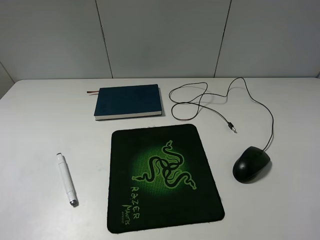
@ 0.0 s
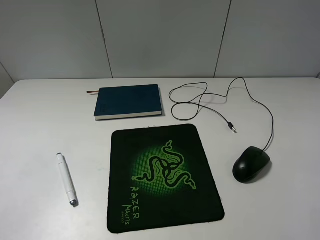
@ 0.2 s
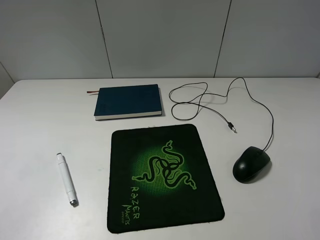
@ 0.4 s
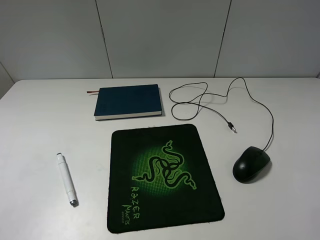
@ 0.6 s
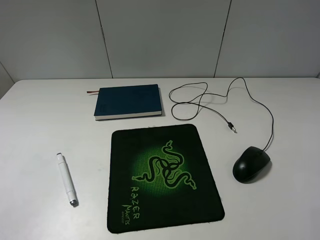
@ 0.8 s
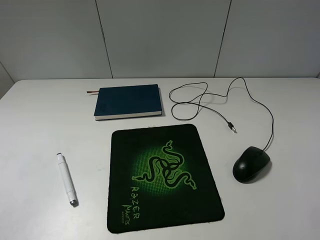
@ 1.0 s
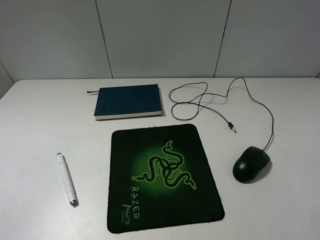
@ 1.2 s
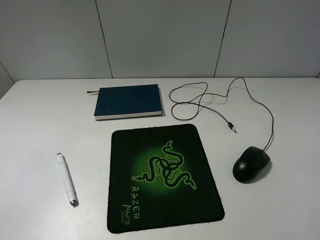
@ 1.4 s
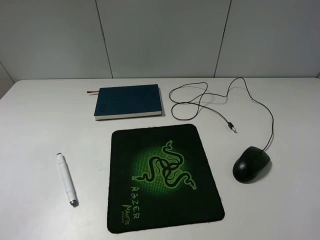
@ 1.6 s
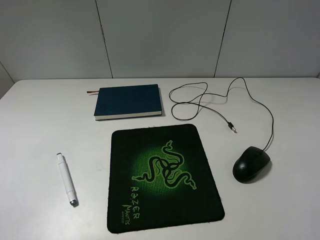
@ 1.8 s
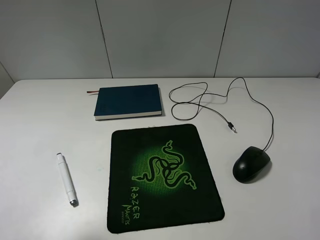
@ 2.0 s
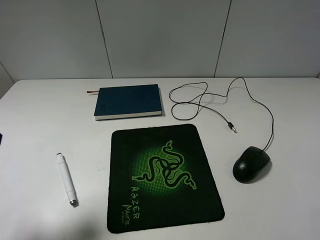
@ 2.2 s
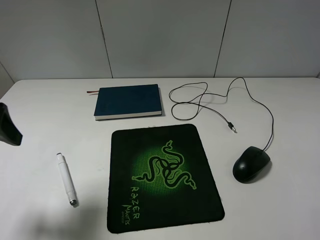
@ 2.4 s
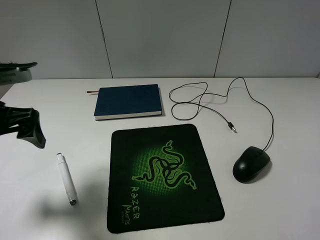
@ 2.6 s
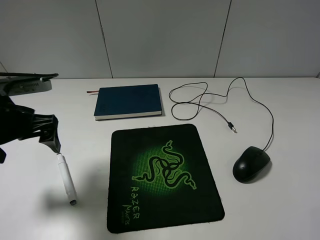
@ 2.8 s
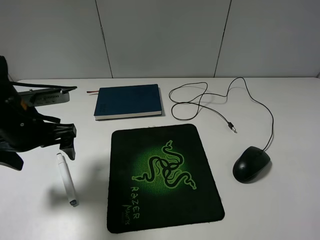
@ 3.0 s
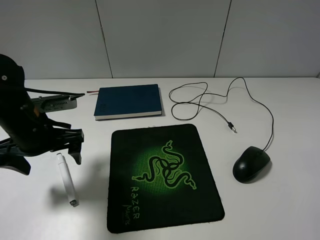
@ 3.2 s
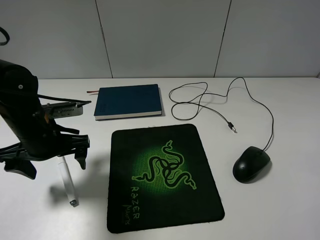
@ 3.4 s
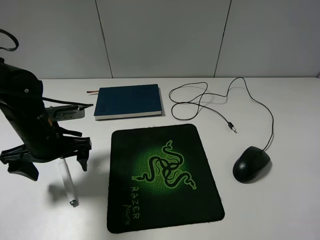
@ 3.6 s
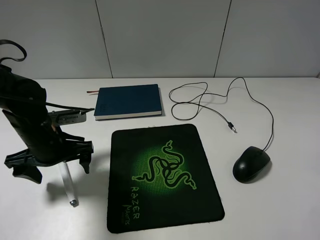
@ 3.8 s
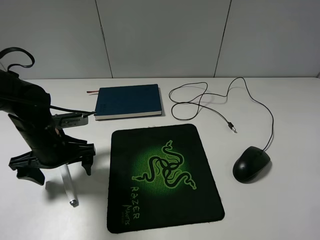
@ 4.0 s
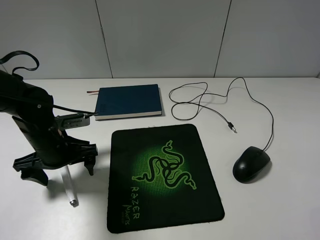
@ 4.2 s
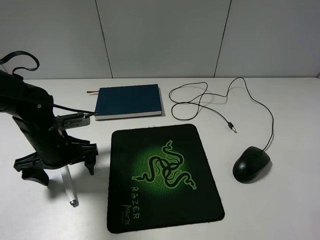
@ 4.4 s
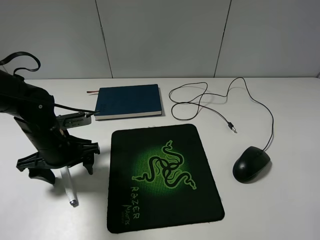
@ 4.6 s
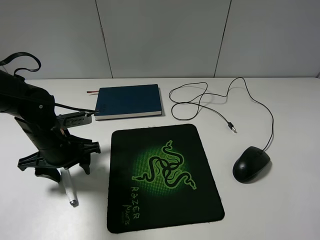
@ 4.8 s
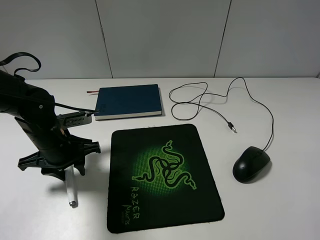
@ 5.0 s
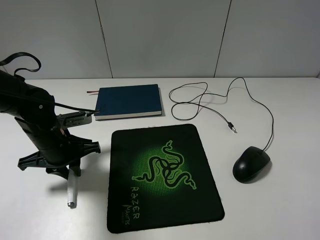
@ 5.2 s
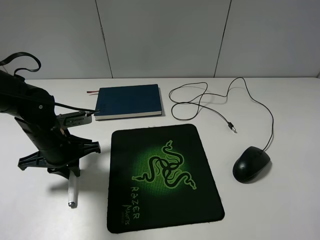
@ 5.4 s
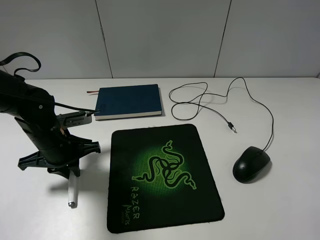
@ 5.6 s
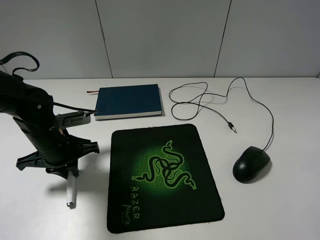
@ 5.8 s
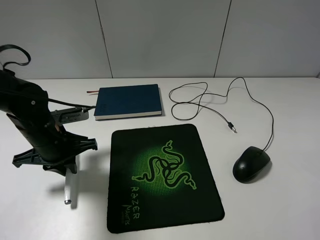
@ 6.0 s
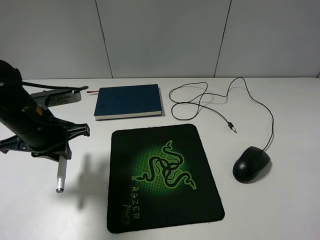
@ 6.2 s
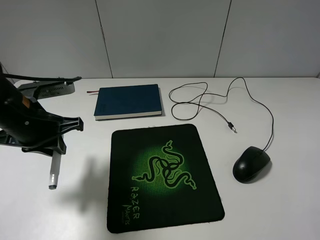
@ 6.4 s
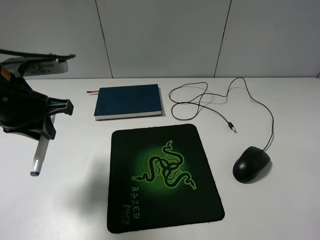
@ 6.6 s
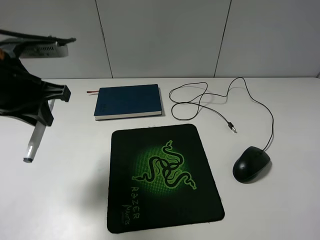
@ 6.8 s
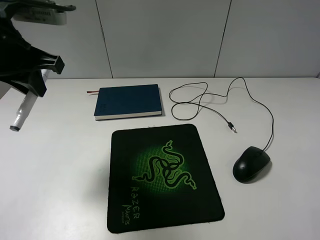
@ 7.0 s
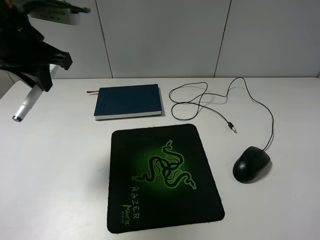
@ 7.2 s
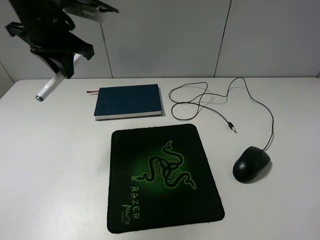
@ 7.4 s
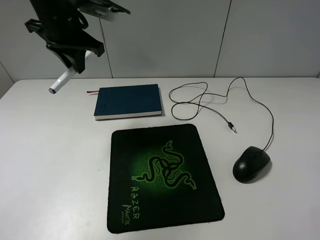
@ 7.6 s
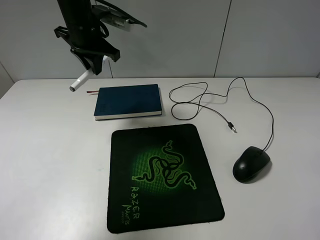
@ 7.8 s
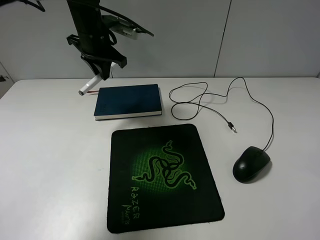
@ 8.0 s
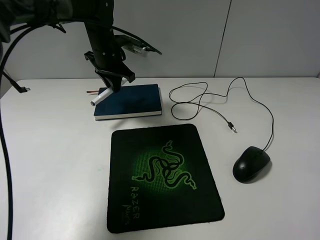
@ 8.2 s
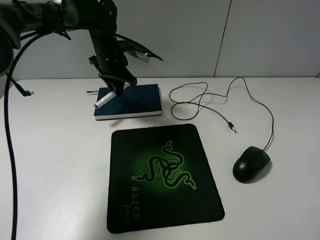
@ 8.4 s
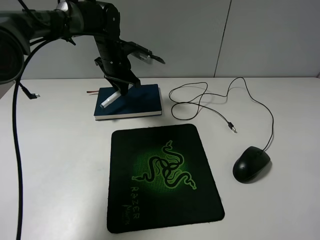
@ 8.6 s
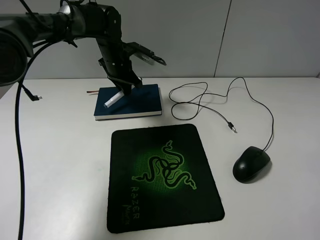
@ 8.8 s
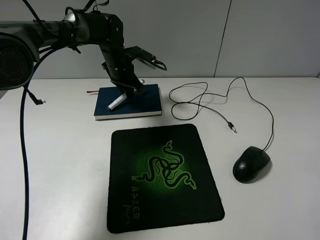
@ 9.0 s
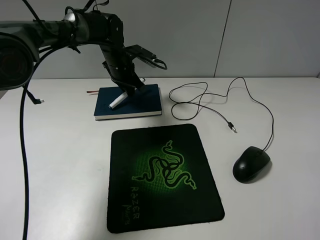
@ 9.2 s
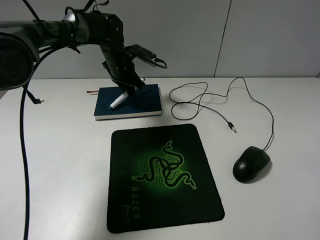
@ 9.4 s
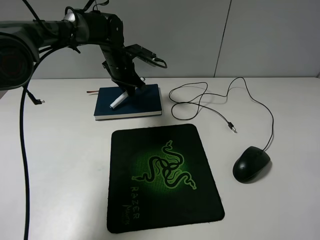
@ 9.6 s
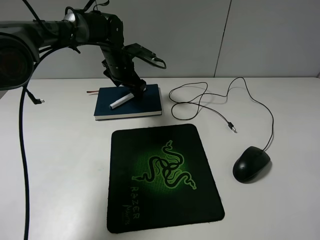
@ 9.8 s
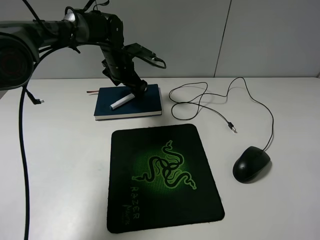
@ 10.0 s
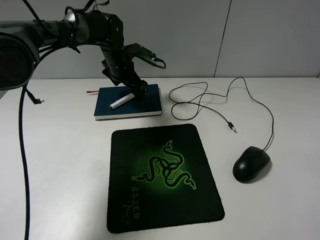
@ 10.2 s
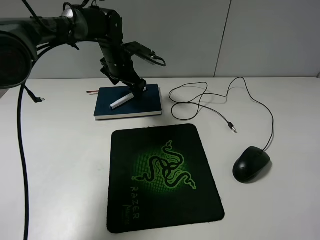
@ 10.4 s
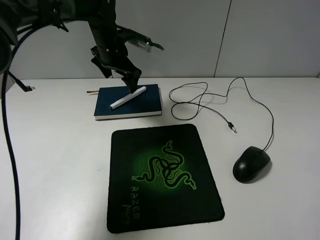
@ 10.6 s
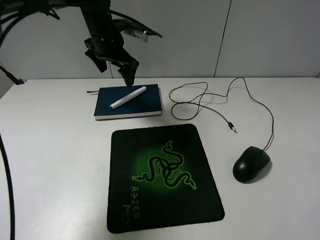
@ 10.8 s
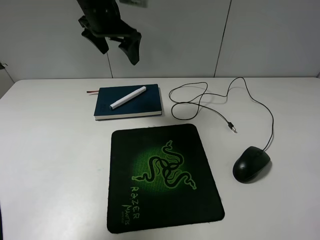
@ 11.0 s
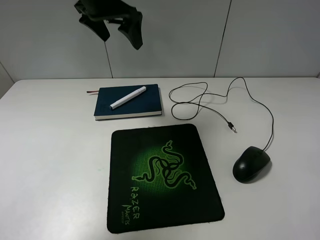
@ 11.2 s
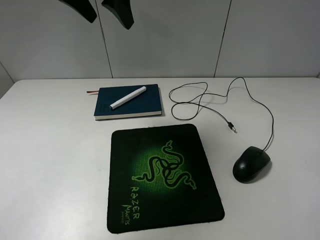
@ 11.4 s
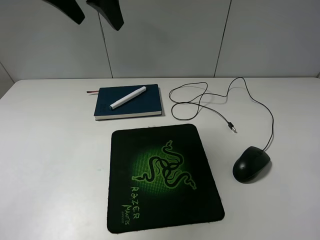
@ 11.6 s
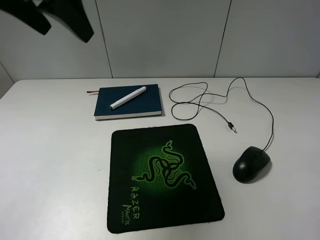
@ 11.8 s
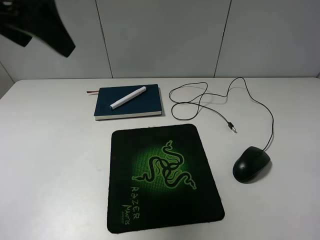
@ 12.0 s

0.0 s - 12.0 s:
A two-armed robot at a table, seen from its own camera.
Step, 0.0 s - 5.2 s: Grasp the marker with the left gripper.
Step, 5.4 s - 10.4 s: Place the marker on the notebook with the left gripper.
1.6 s - 3.0 s: The left gripper is displaced forward and downward by approximately 25 cm.
3.0 s - 4.4 s: The left gripper moves downward, about 10 cm.
4.4 s - 6.0 s: The left gripper closes its fingers.
6.0 s - 7.6 s: The left gripper moves upward and forward, about 20 cm.
7.6 s - 9.0 s: The left gripper heads downward and forward, covering some 20 cm.
9.0 s - 10.4 s: The left gripper opens up.
10.4 s - 12.0 s: The left gripper travels backward and upward by some 35 cm.

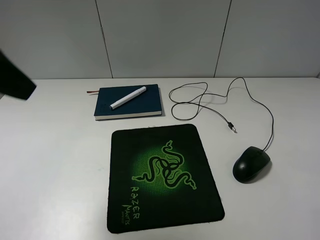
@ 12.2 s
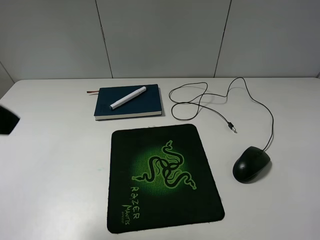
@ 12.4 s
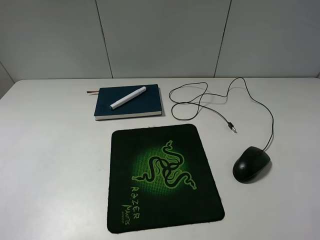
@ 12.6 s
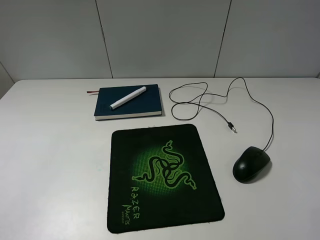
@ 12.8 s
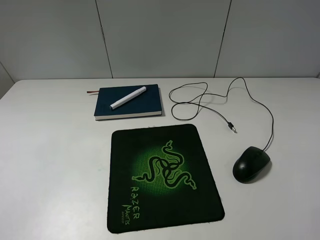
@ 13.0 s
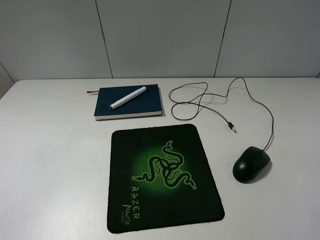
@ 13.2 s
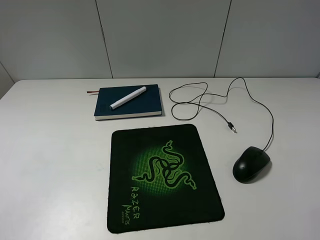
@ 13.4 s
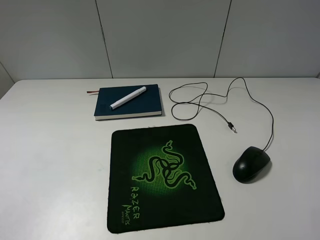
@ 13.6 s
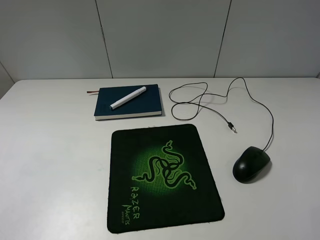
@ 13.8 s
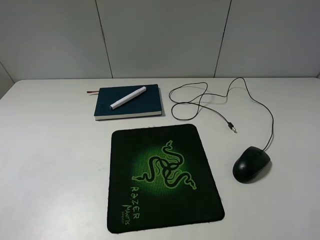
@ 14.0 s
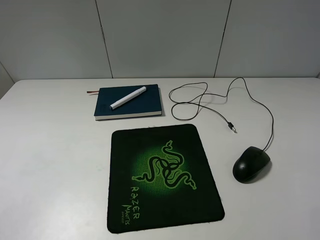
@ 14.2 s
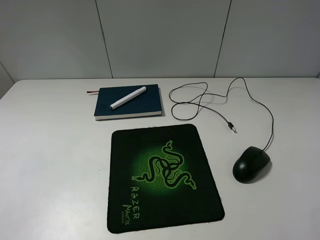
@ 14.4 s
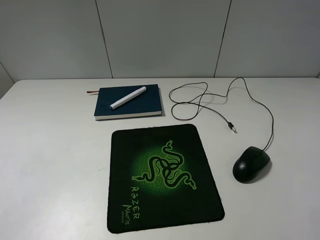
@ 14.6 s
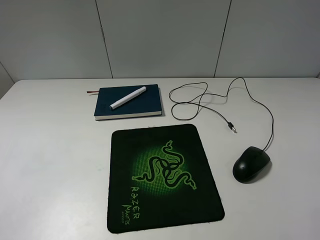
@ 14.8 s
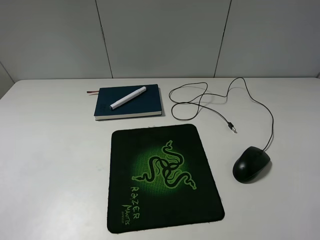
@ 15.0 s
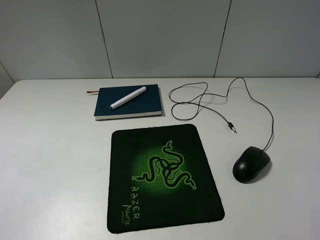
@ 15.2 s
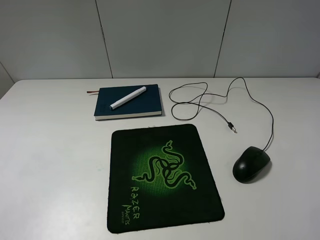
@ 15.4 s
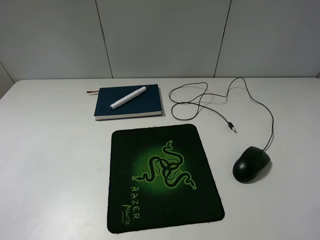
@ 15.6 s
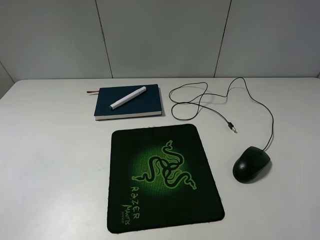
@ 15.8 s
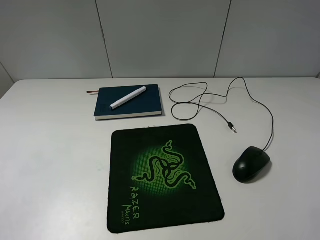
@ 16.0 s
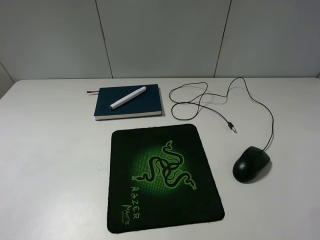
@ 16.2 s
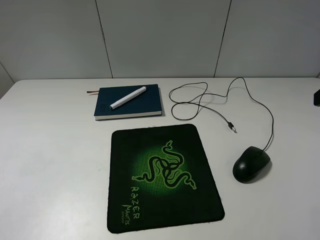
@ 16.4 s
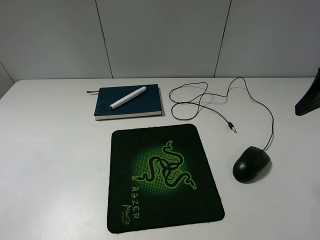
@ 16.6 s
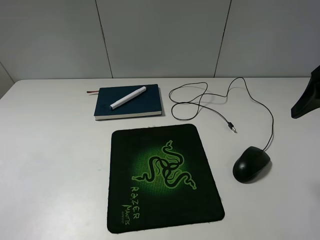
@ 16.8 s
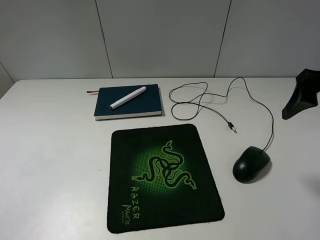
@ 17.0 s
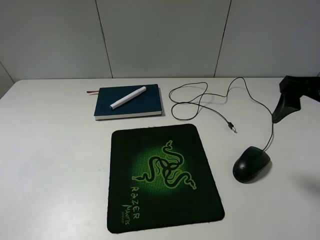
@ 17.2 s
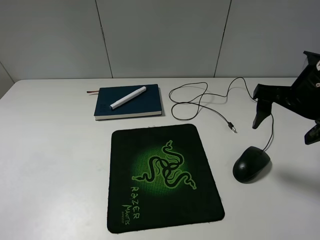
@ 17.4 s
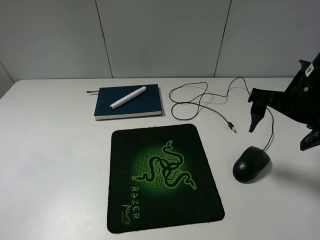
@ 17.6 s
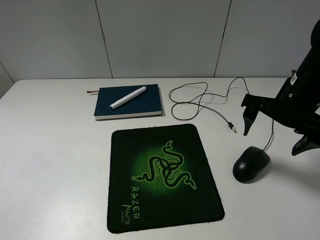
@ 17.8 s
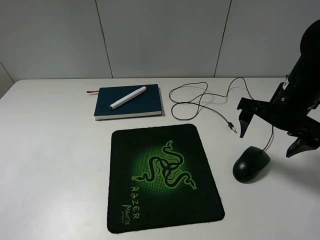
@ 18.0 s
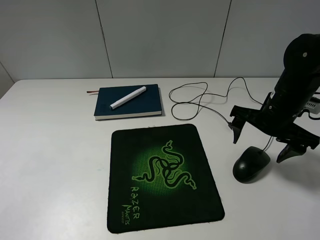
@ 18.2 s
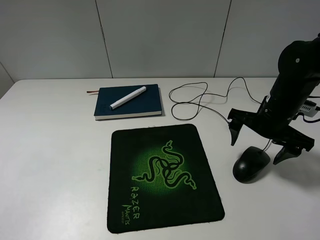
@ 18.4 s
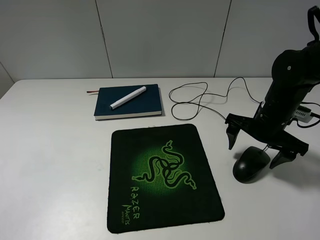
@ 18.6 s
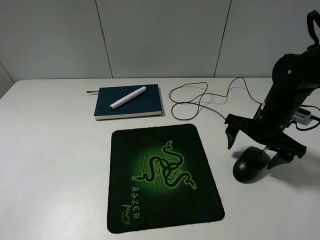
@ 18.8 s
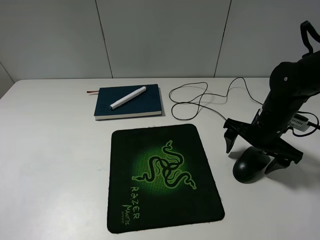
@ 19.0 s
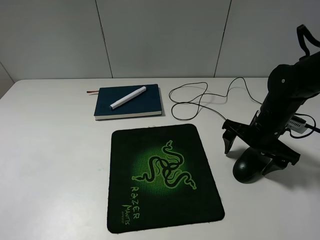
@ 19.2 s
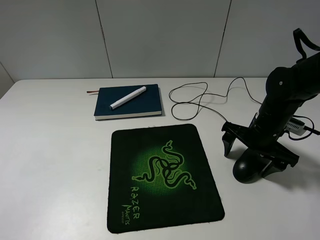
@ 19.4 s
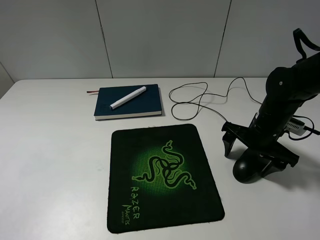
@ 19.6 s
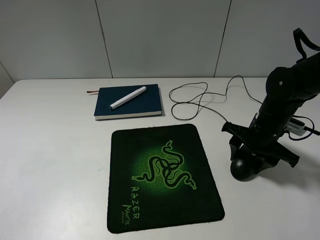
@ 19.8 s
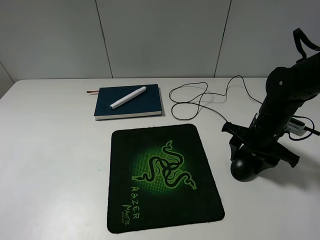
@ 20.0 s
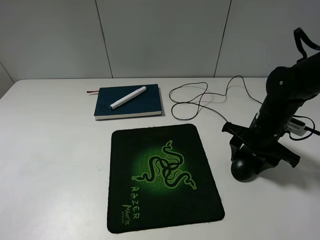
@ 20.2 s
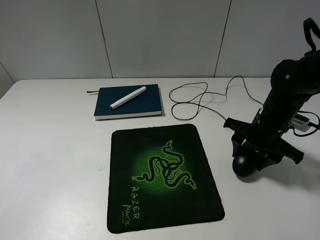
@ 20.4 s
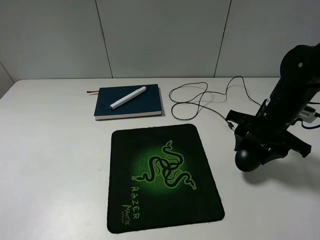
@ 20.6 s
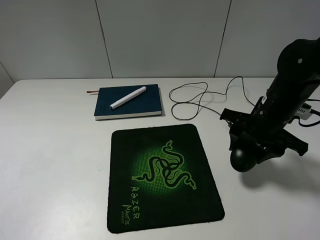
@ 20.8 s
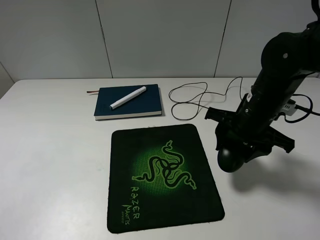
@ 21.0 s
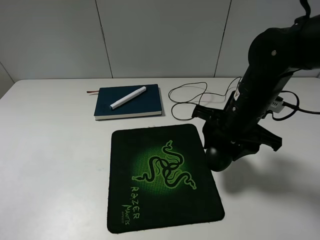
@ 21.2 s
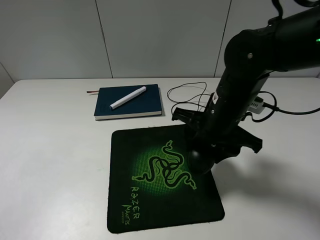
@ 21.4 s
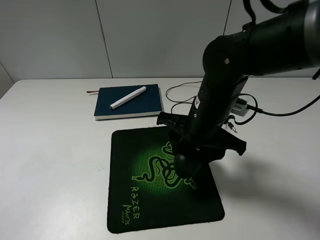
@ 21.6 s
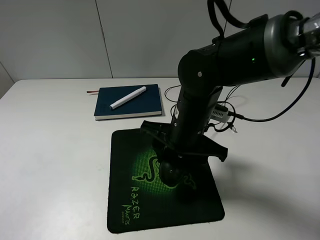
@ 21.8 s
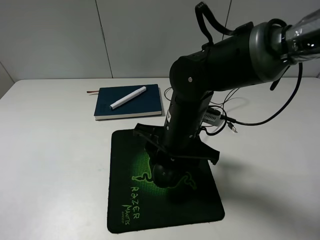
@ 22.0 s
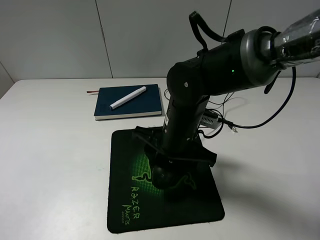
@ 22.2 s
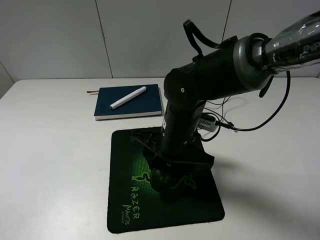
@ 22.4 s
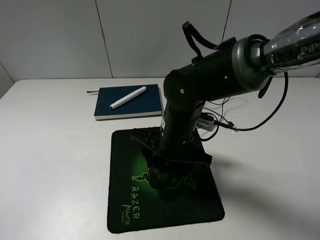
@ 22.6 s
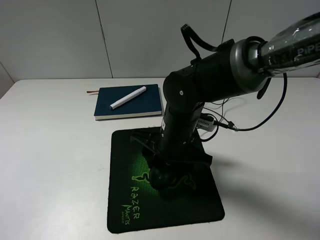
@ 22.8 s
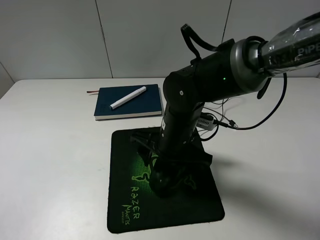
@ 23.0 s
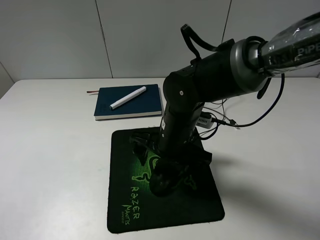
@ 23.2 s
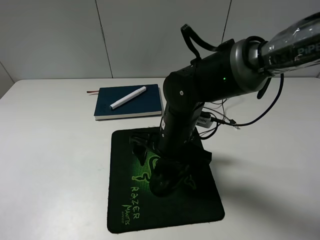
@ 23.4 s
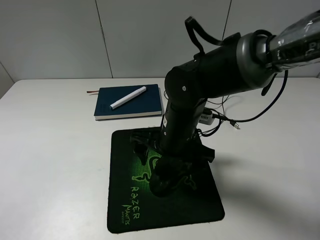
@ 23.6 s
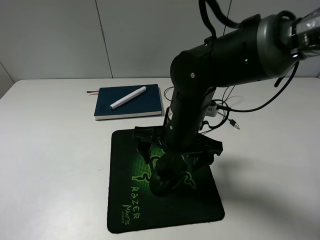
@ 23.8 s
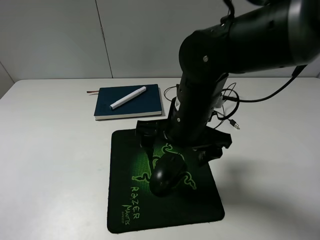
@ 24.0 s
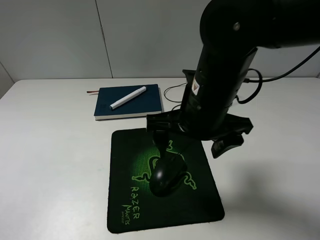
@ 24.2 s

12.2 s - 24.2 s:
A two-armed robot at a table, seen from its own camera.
Step, 12.2 s - 19.8 s: Grasp the mouse with the right gripper.
Step, 20.0 s - 23.6 s: Place the mouse on the mouse pad with the right gripper.
12.2 s - 13.8 s: The left gripper is displaced backward, downward and to the left by about 20 cm.
13.8 s - 15.2 s: Neither gripper changes place.
15.2 s - 16.6 s: The right gripper moves forward, about 20 cm.
16.6 s - 18.2 s: The right gripper moves downward, forward and to the left, approximately 20 cm.
18.2 s - 19.8 s: The right gripper travels downward by about 5 cm, and closes its fingers.
19.8 s - 21.2 s: The right gripper travels to the left and upward by roughly 10 cm.
21.2 s - 22.6 s: The right gripper shifts roughly 10 cm to the left and downward.
22.6 s - 24.2 s: The right gripper travels upward by some 10 cm, and opens its fingers.
